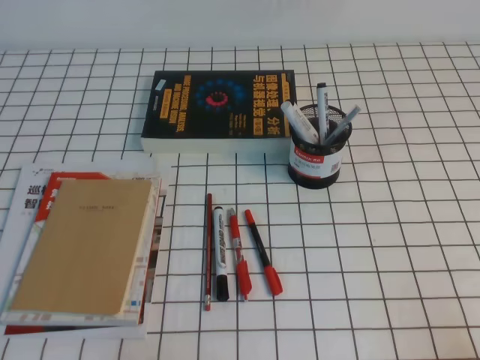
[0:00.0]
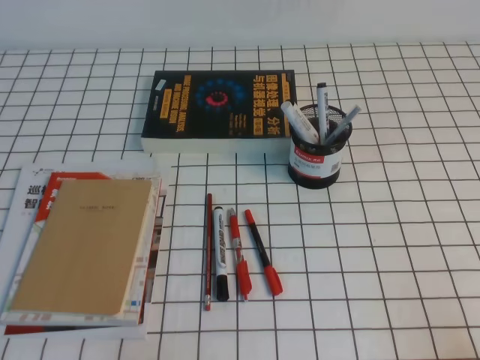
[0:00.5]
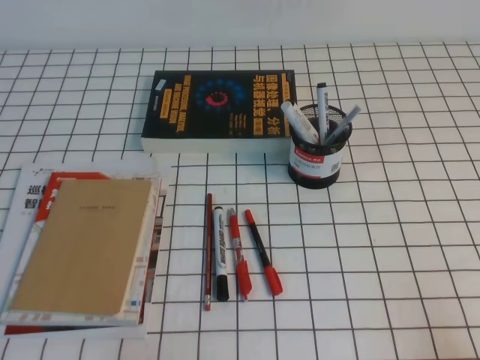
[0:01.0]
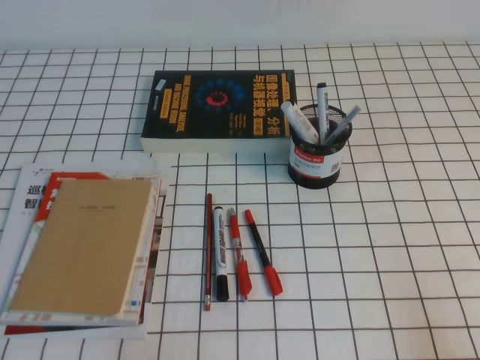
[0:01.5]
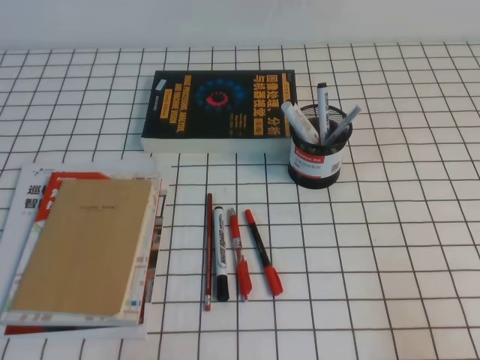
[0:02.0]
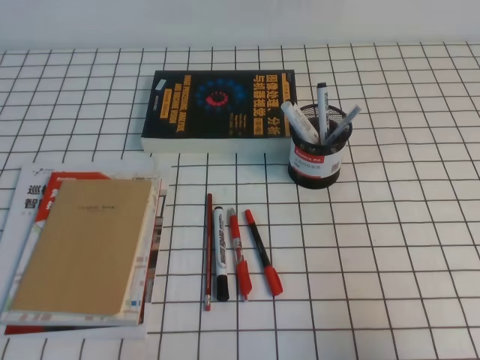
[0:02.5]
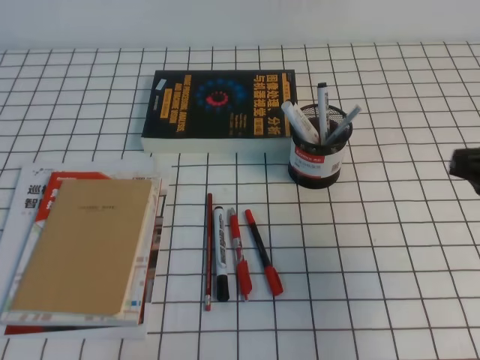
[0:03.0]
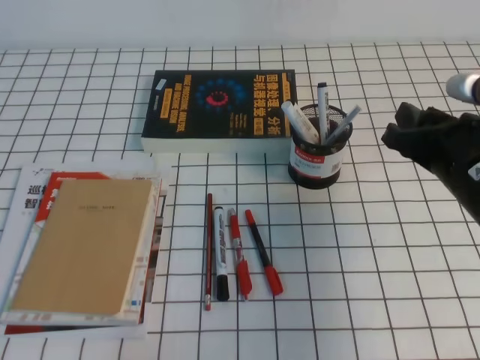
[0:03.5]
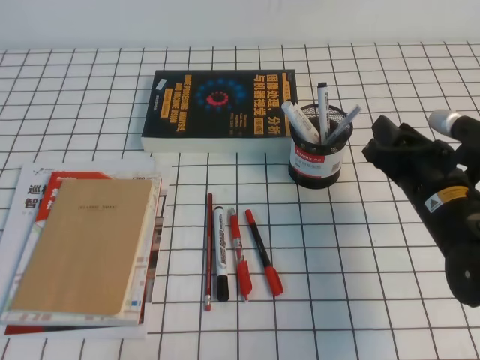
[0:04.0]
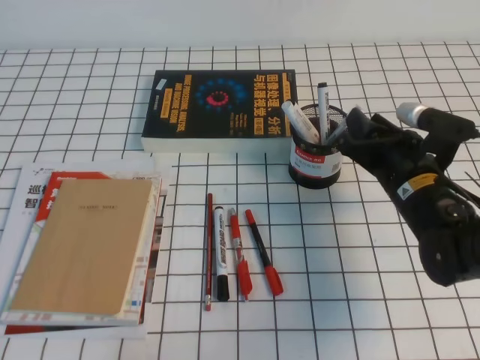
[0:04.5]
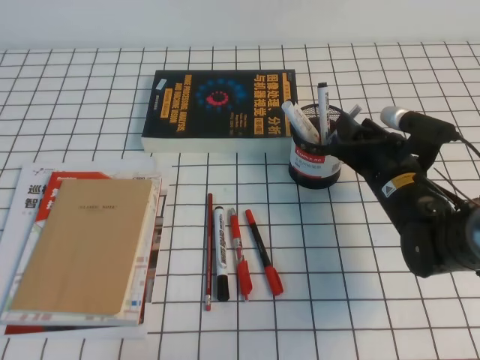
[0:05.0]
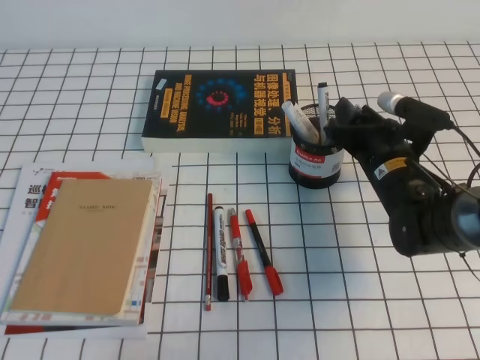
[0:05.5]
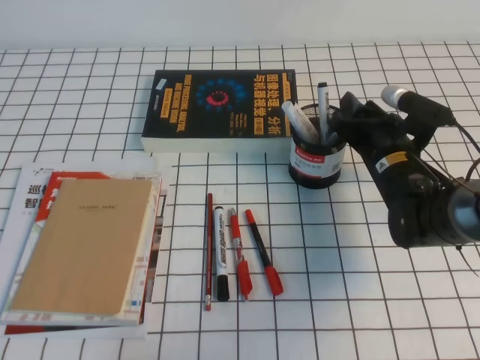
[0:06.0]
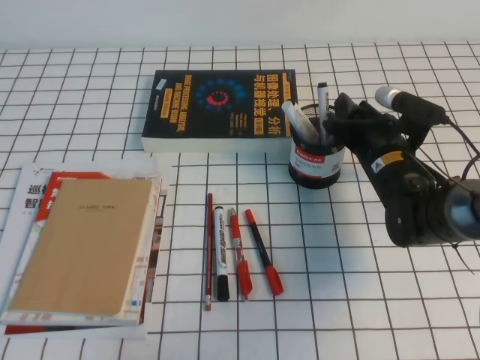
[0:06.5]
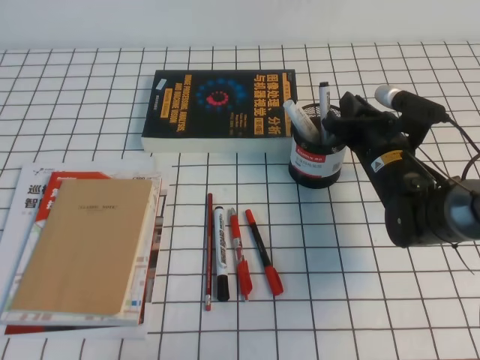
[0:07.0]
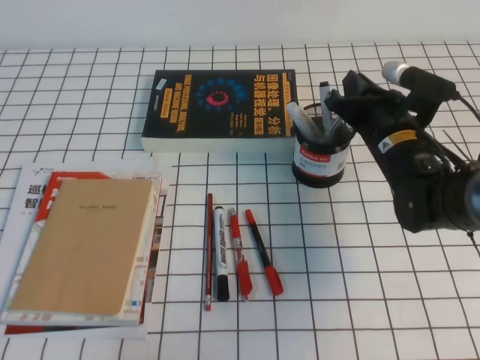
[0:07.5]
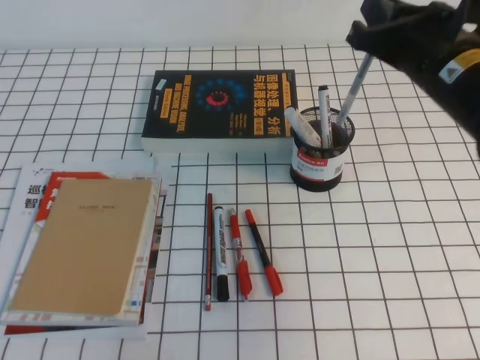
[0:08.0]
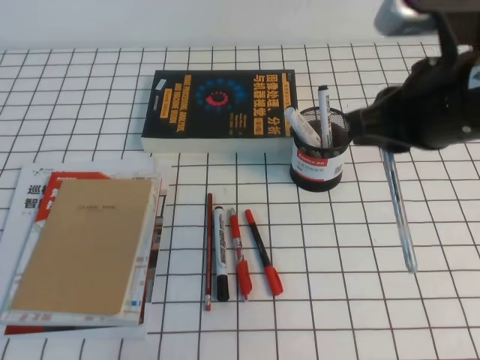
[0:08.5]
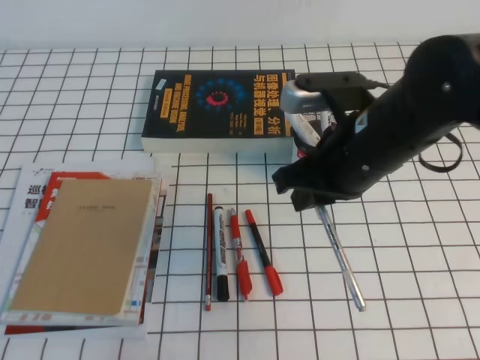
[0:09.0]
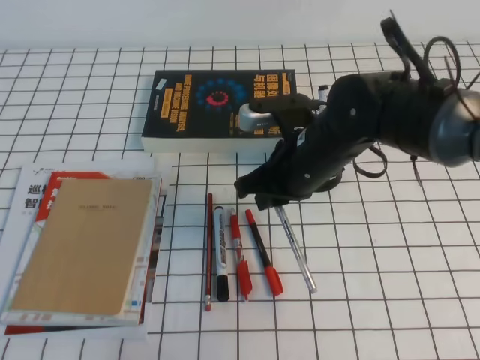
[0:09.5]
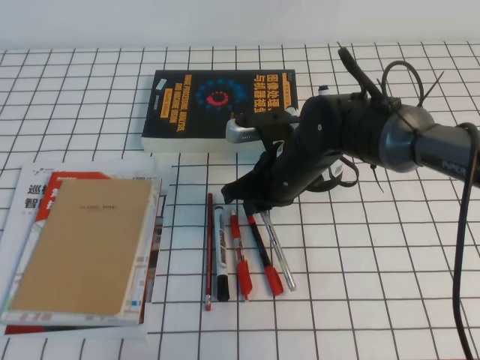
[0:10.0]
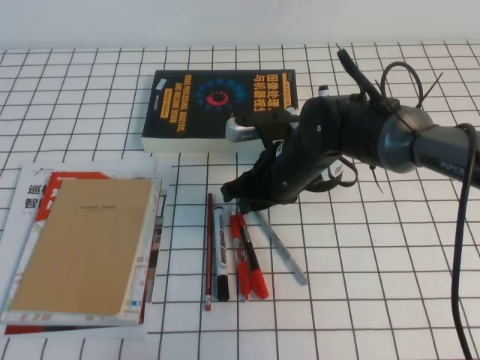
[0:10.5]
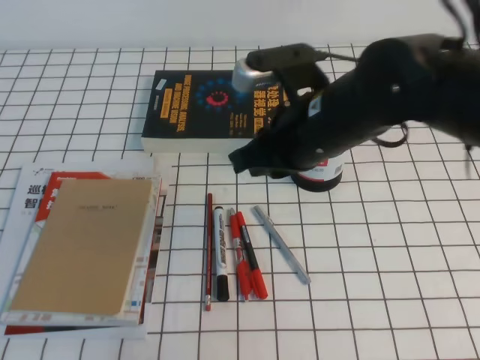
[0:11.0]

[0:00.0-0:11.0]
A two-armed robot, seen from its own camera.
0:02.0 to 0:03.5: The right gripper goes some 25 cm forward and to the left, and opens its fingers.
0:03.5 to 0:05.5: The right gripper moves forward and downward, about 15 cm.
0:05.5 to 0:07.5: The right gripper closes.
0:07.5 to 0:09.0: The right gripper travels upward and backward by roughly 15 cm.
0:09.0 to 0:11.0: The right gripper goes downward and returns, some 10 cm each way.

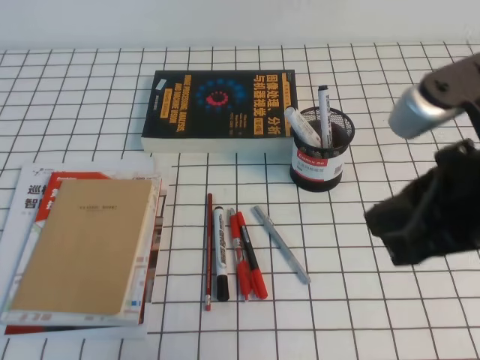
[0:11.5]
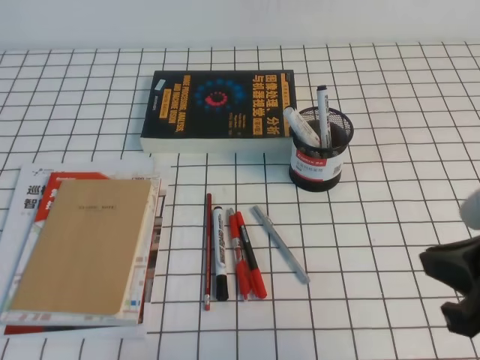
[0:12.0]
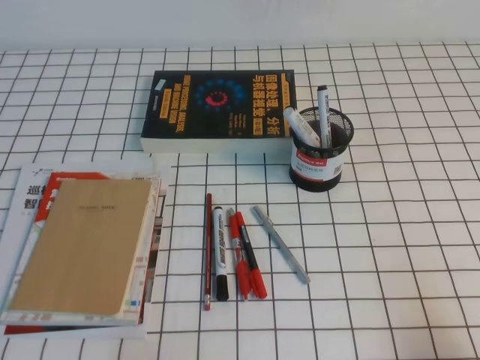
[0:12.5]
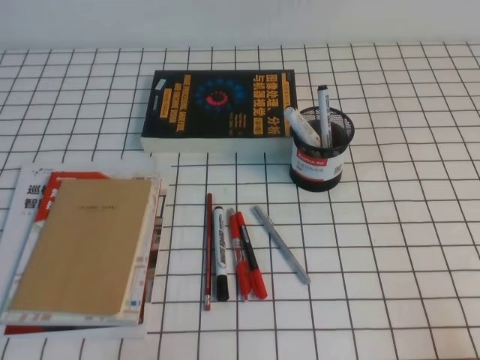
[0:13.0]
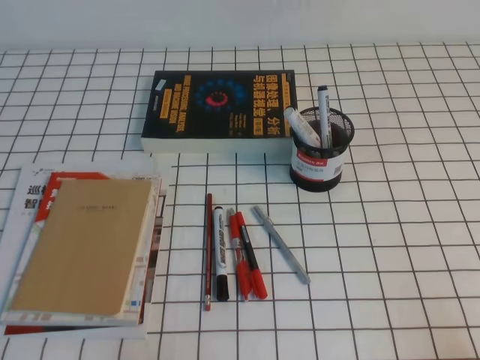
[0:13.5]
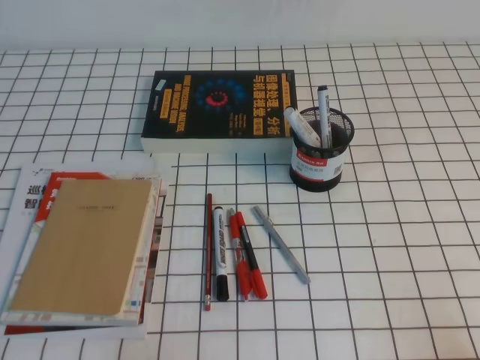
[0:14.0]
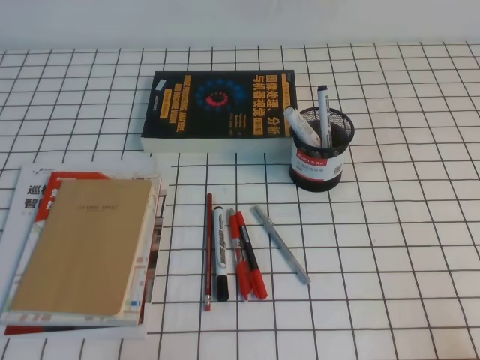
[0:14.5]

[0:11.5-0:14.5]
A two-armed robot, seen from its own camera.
Step, 0:11.5 to 0:14.5: Pick up the pen from the pen holder.
0:11.5 to 0:13.0: The right gripper goes some 25 cm downward, to the right and backward.
0:13.0 to 0:14.5: Neither gripper changes place.
